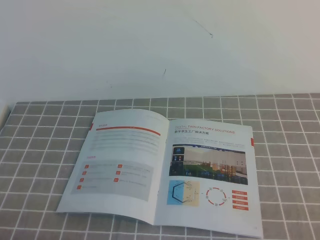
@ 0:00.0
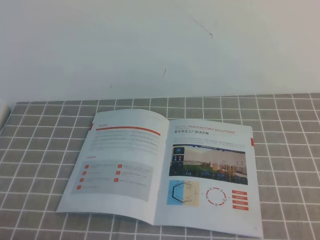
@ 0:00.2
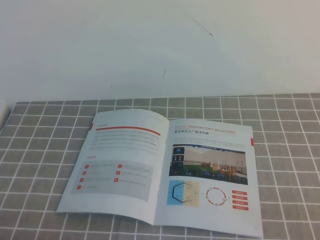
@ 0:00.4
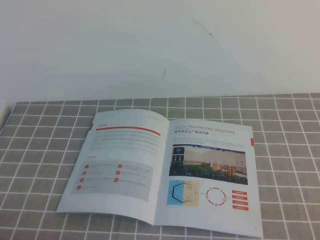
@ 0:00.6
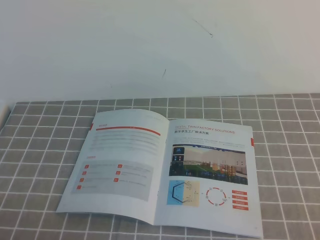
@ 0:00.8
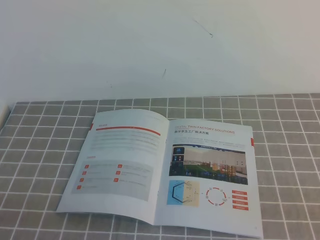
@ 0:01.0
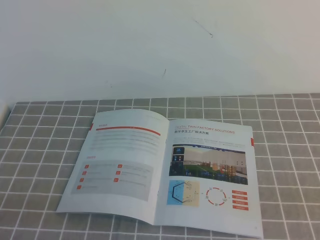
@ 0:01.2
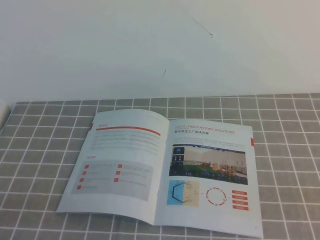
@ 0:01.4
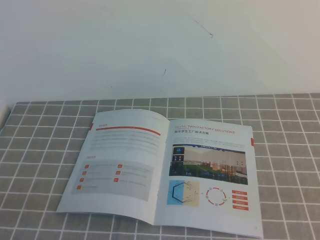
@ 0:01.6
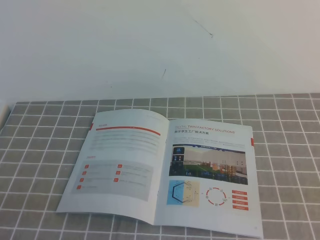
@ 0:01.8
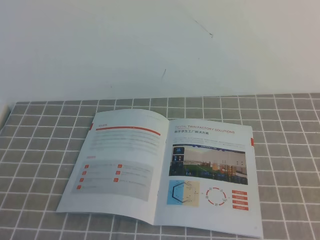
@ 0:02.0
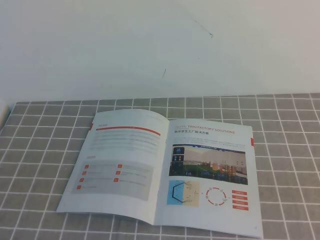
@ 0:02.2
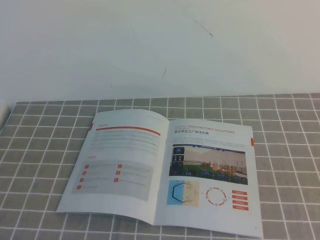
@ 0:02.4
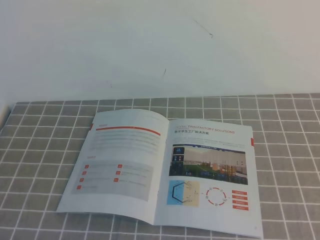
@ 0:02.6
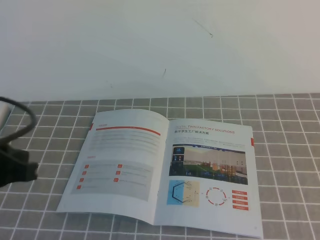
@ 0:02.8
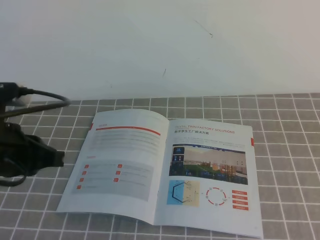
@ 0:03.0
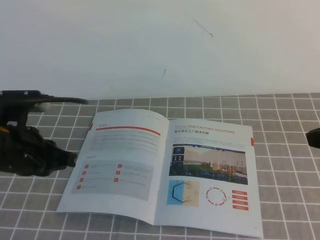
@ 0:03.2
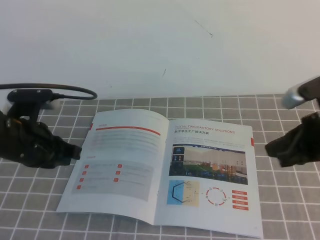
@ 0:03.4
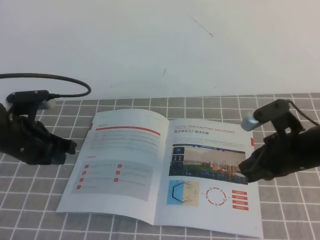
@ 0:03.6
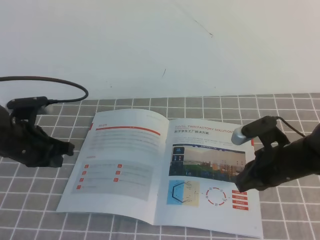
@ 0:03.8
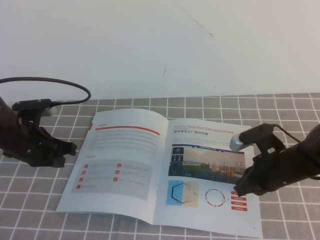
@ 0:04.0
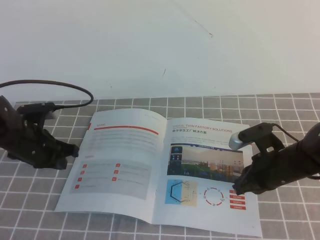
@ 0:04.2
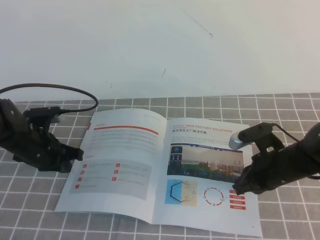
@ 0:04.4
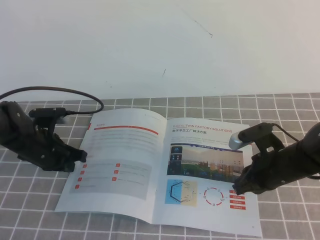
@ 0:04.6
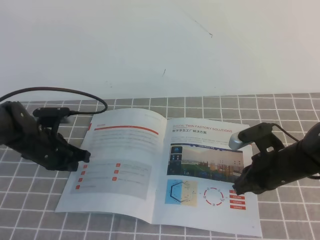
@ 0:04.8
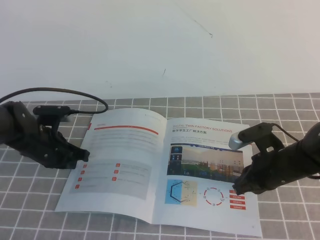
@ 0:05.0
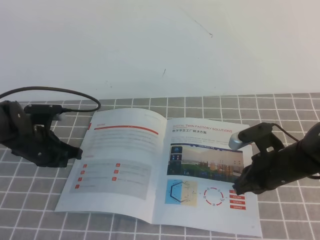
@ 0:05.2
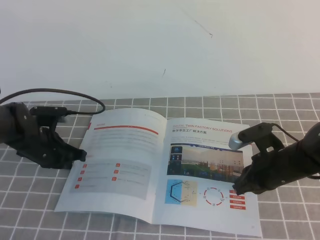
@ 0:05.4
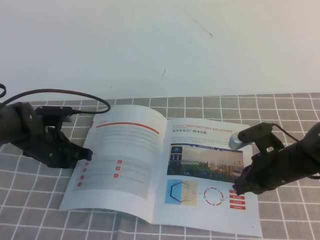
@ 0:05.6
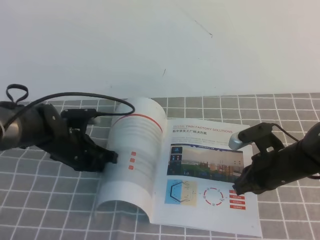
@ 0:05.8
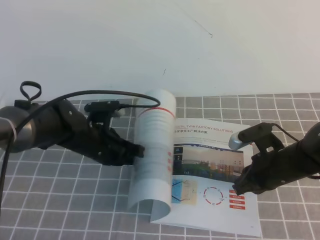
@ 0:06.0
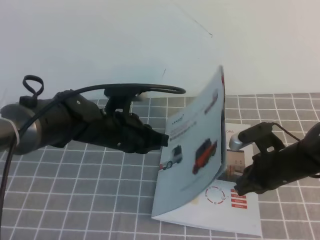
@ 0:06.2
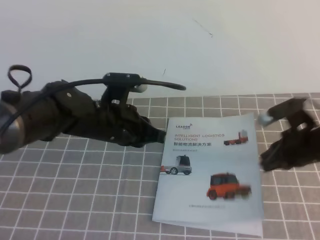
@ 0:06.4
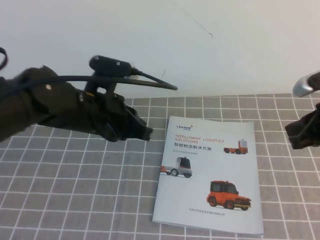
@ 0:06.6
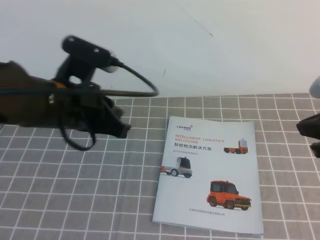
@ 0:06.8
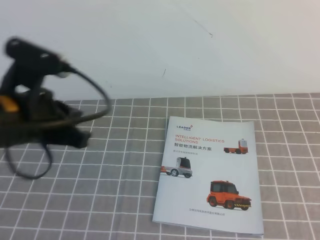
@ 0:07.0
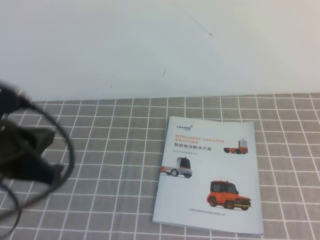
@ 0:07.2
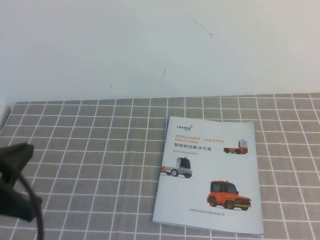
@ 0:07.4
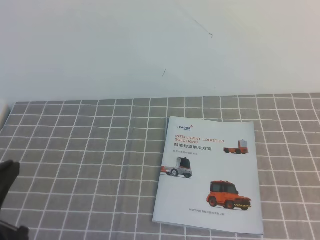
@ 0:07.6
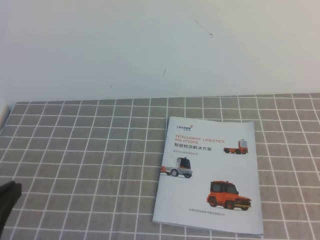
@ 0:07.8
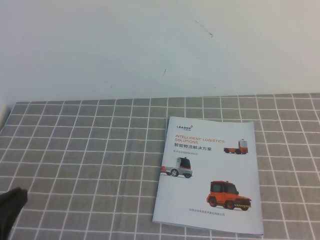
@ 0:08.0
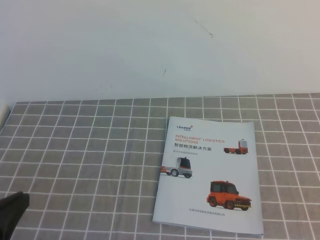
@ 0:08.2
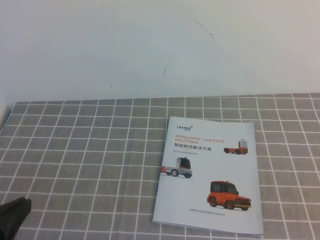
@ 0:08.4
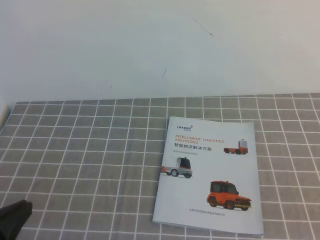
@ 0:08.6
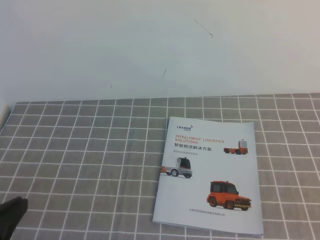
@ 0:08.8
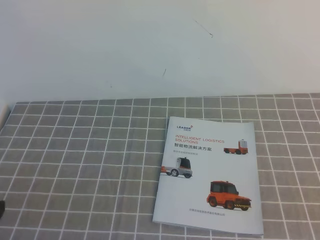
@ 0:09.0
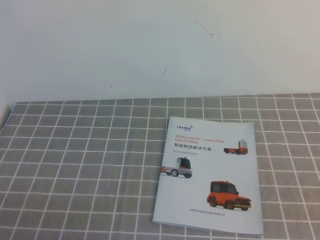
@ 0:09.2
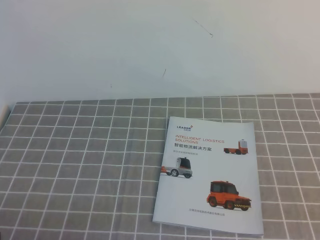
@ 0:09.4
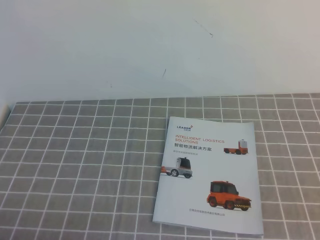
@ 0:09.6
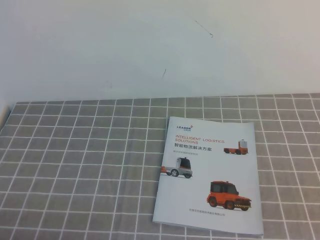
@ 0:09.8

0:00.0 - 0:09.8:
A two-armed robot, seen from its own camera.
Task of the whole recording: on the grey tablecloth, hold the book with one hand and close it with the other.
0:01.4 - 0:02.8: The left gripper goes roughly 15 cm forward and upward.
0:02.8 - 0:04.2: The left gripper moves forward and downward, approximately 25 cm. Meanwhile the right gripper shifts some 30 cm downward, forward and to the left.
0:04.2 - 0:05.6: The grippers move only a little.
0:05.6 - 0:07.0: The left gripper goes about 25 cm upward and backward, while the right gripper shifts some 20 cm upward, backward and to the right.
0:07.0 - 0:08.4: The right gripper shifts about 15 cm backward, while the left gripper shifts some 15 cm backward and downward.
0:08.4 - 0:09.8: The left gripper goes roughly 10 cm downward.
